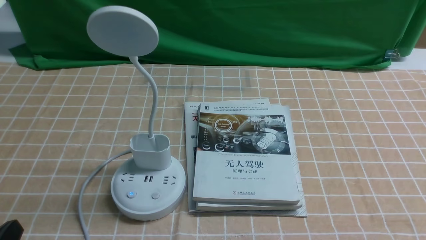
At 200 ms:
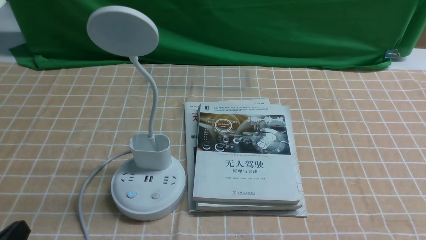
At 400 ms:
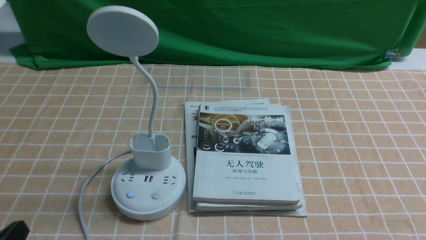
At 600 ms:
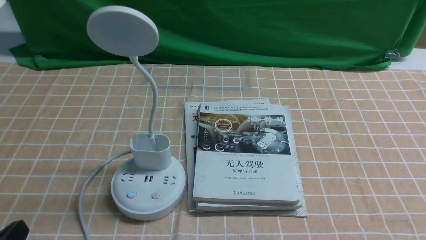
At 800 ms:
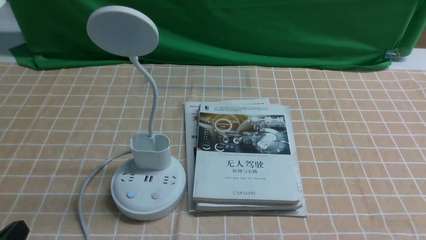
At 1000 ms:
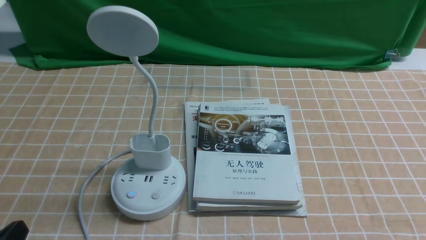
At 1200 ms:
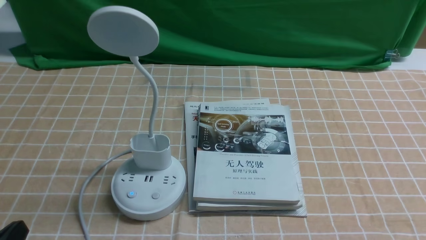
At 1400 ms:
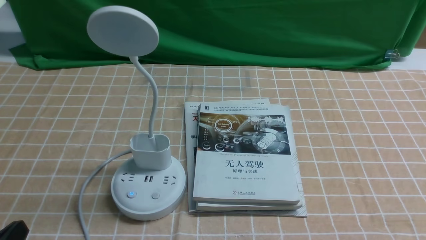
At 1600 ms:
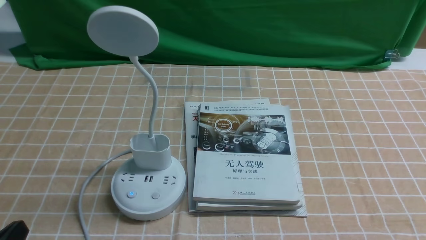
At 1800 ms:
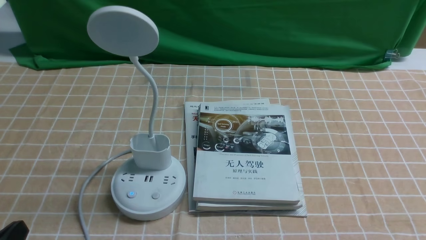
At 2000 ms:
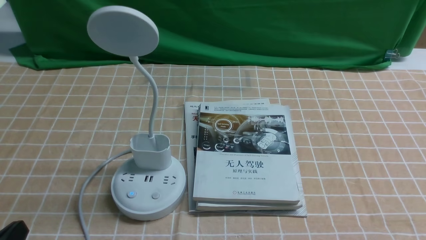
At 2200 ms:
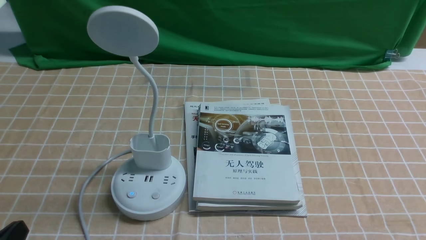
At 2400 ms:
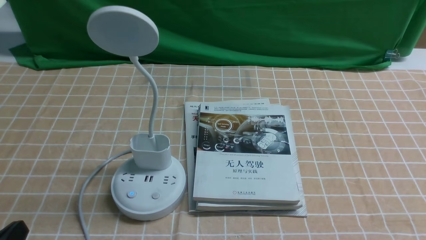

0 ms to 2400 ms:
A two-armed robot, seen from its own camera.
Task of the whole recording: turn off the desk lamp on the light coffee tablecloth by hand.
1200 ms to 2400 ms: Both grippers stay put.
